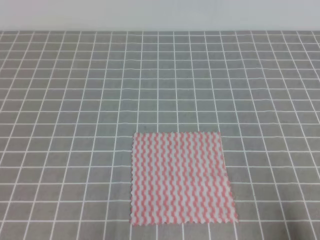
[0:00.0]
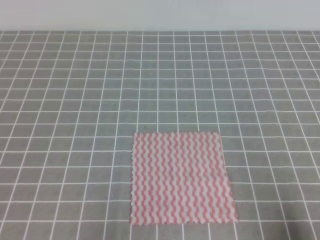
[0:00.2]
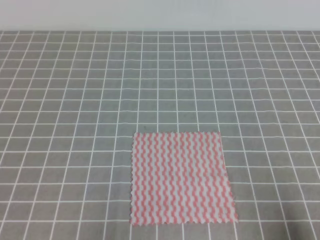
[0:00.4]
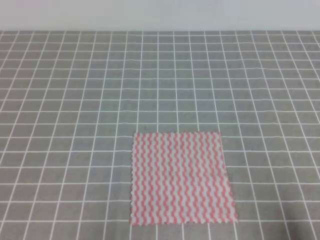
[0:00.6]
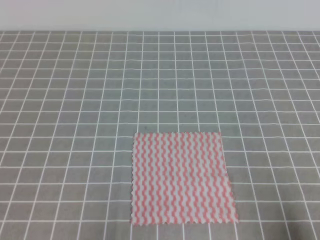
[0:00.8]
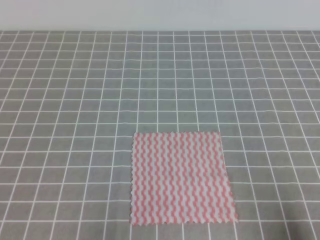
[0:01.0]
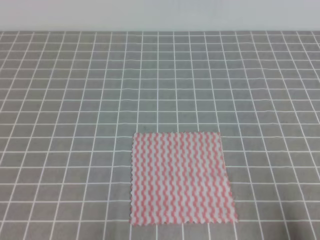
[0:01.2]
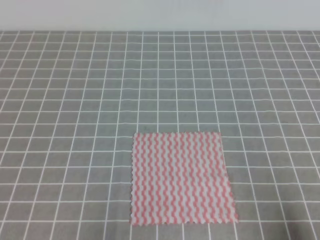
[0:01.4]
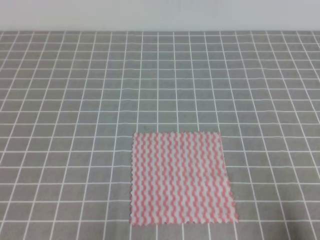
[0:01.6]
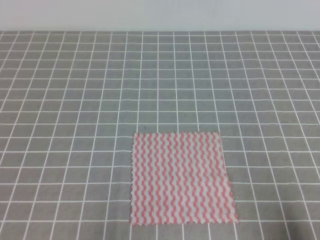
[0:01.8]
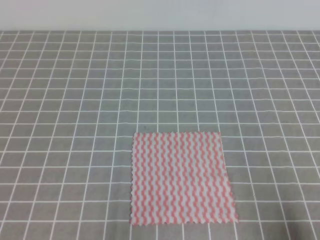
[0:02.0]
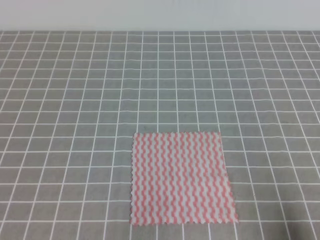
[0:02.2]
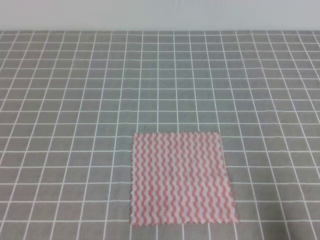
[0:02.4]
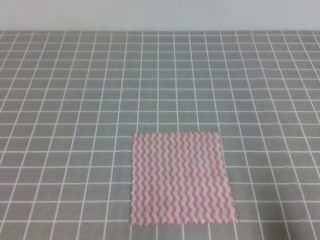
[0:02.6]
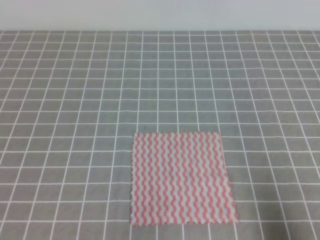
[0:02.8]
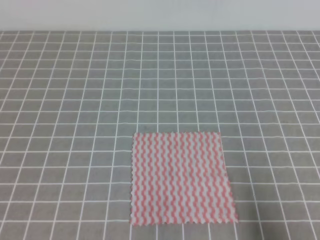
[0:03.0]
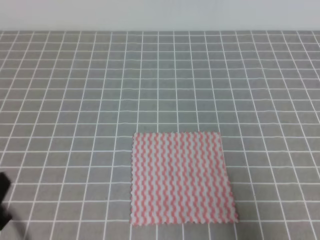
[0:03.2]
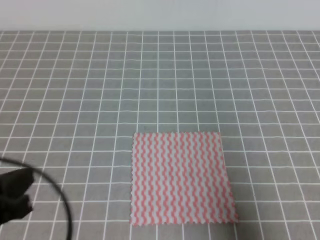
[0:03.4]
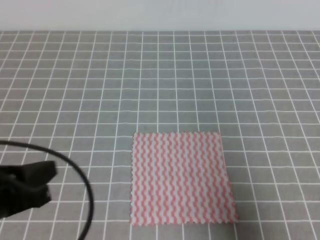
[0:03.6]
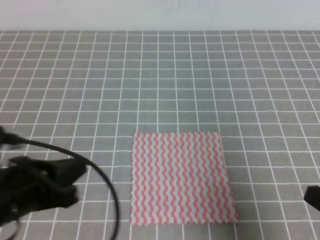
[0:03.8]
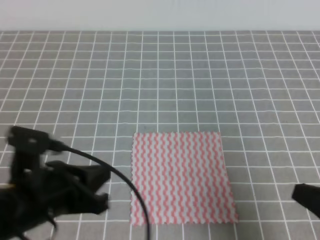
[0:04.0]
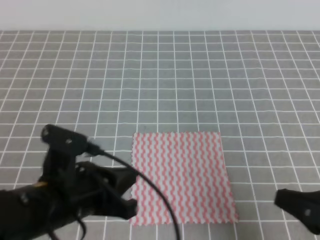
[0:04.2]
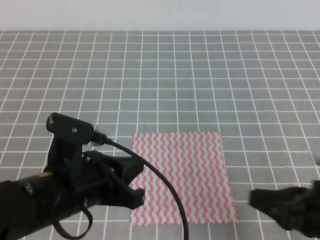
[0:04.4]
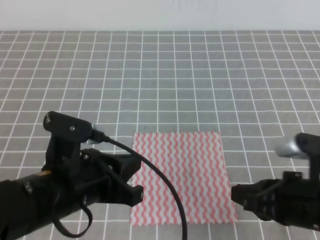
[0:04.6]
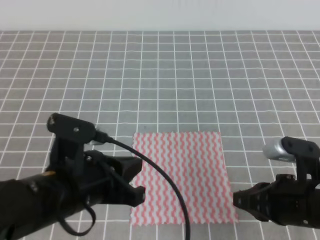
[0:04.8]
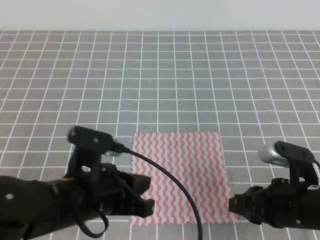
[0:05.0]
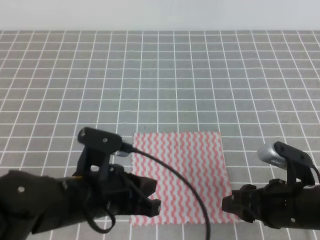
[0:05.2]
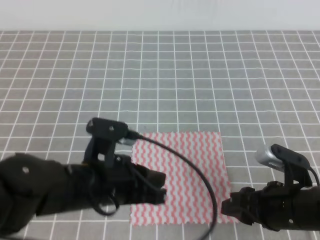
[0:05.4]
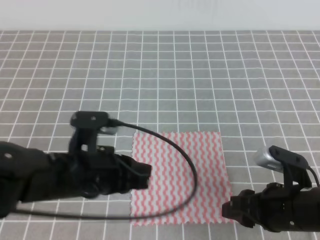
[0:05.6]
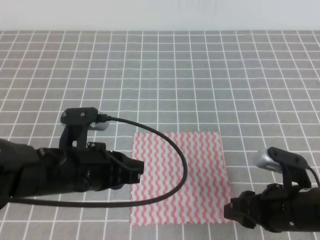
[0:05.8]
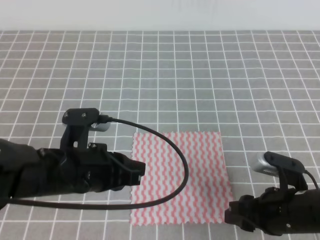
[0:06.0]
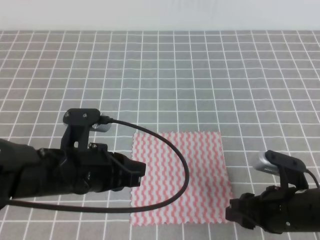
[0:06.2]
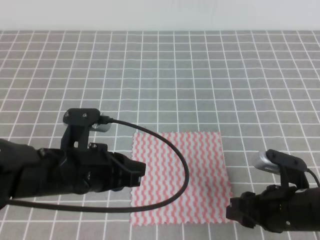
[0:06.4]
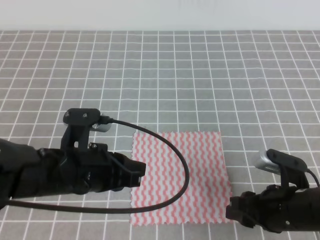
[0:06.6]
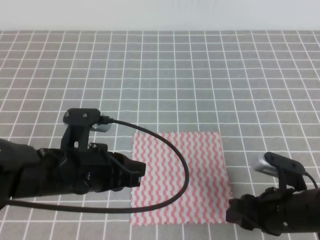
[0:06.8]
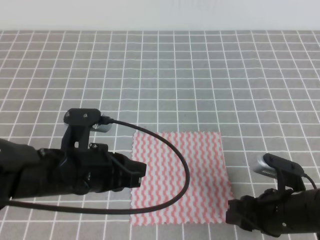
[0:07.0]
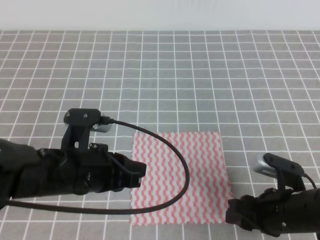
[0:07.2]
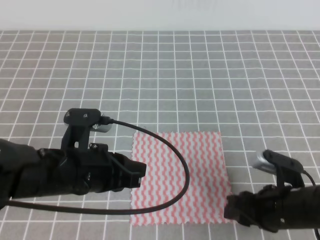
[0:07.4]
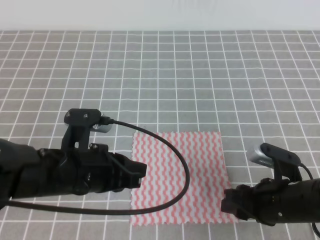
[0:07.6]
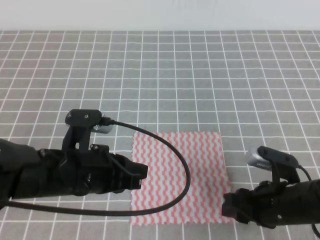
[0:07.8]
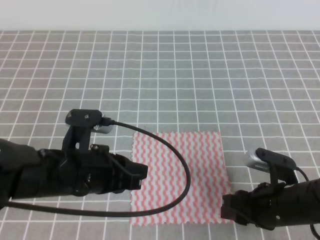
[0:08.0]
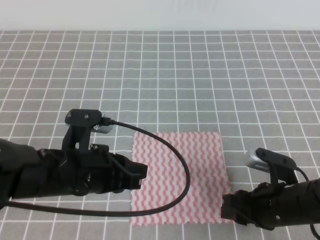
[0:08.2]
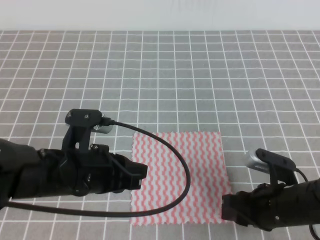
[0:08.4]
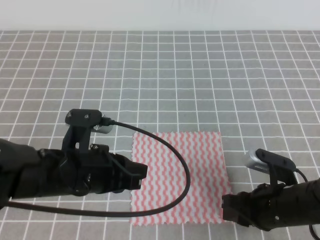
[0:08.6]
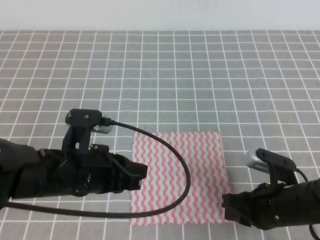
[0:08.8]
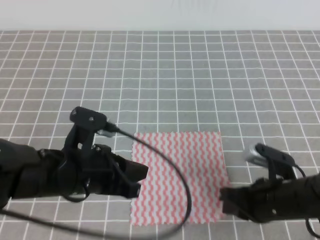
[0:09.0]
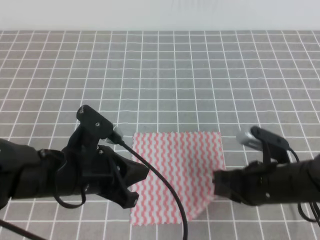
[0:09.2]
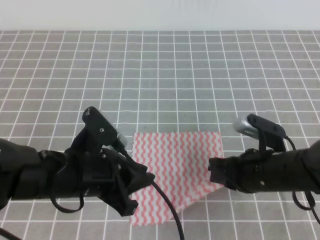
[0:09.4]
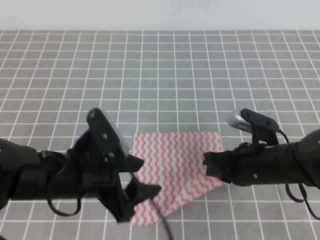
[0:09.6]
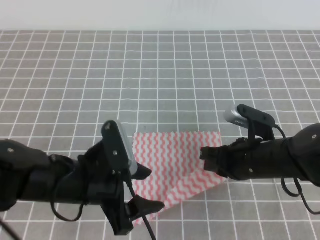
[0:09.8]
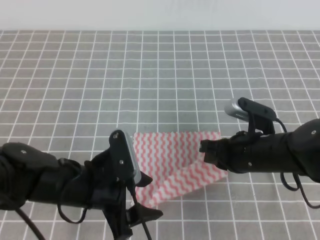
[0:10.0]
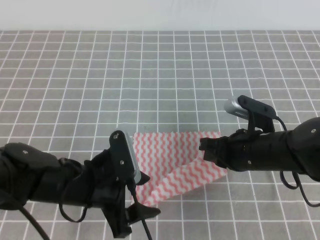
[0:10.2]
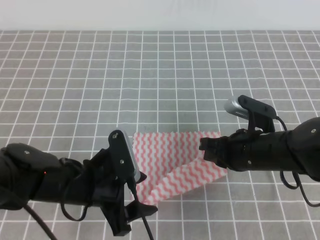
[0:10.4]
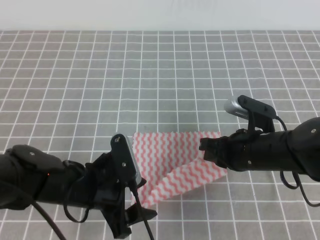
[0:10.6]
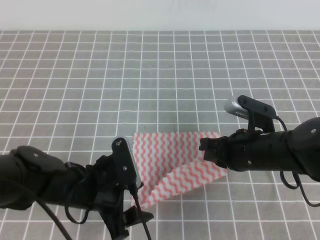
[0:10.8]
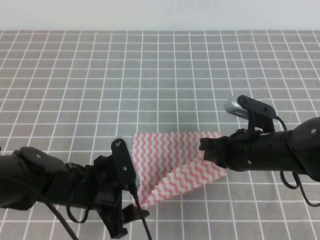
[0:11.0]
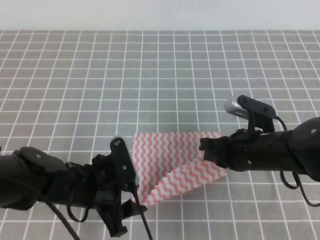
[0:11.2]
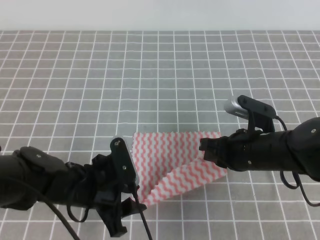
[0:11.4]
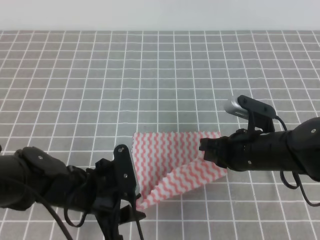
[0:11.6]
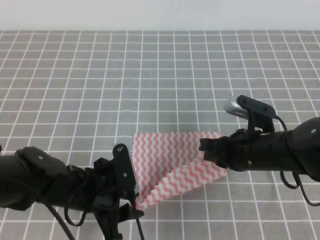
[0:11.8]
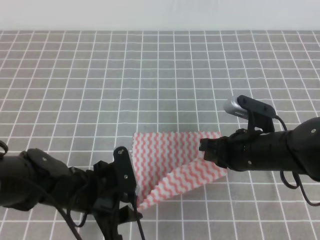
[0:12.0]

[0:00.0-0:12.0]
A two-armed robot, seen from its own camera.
Step, 0:00.0 to 0:10.8: Fold the towel upwards with the both gripper.
0:00.0 to 0:01.6: Both grippers stay about where they are.
0:03.0 to 0:04.4: The right gripper shifts about 10 cm to the left and forward. Meanwhile the left gripper shifts some 15 cm to the right and forward.
0:04.4 to 0:06.0: The right gripper shifts about 5 cm downward, and opens. Meanwhile the left gripper changes place by roughly 5 cm.
0:06.0 to 0:07.6: The grippers make only small movements.
0:07.6 to 0:09.0: The right gripper closes its fingers.
0:09.0 to 0:10.4: The right gripper is displaced forward by some 5 cm. Meanwhile the left gripper opens its fingers.
0:10.4 to 0:12.0: The left gripper closes its fingers.

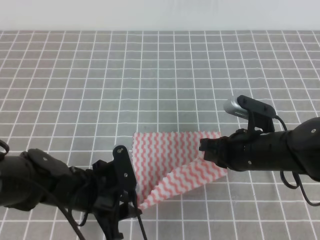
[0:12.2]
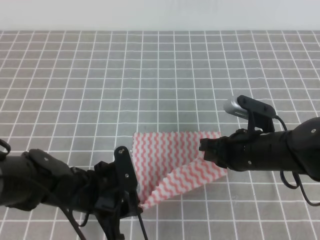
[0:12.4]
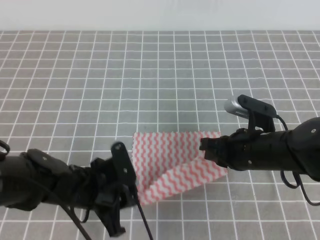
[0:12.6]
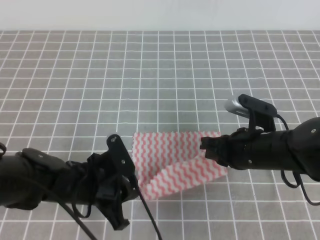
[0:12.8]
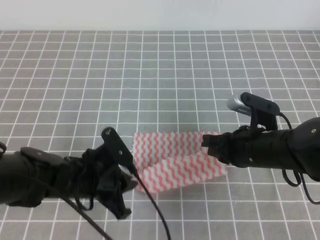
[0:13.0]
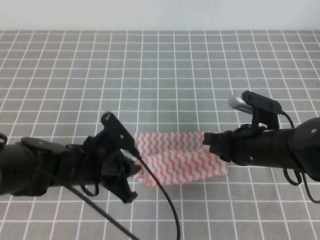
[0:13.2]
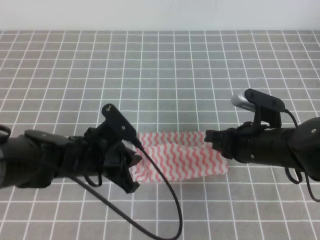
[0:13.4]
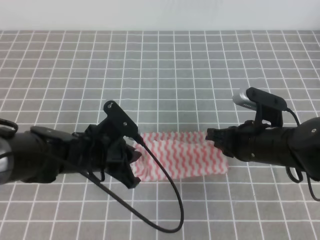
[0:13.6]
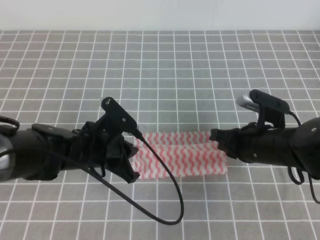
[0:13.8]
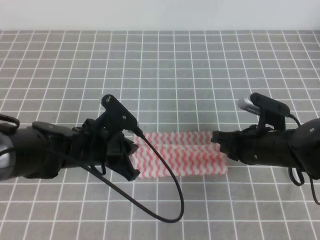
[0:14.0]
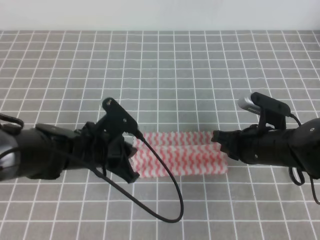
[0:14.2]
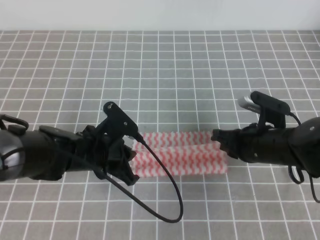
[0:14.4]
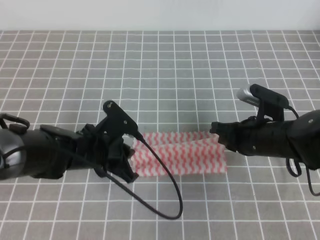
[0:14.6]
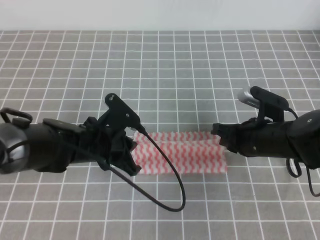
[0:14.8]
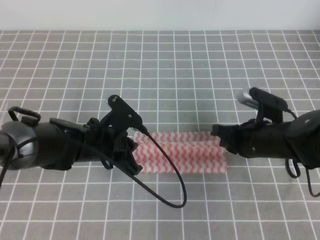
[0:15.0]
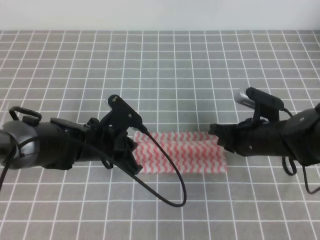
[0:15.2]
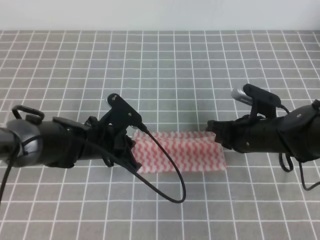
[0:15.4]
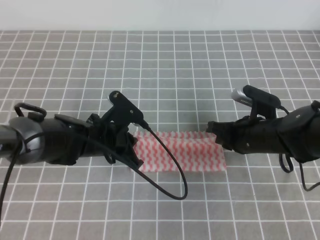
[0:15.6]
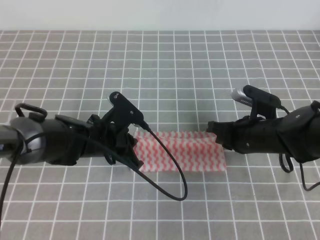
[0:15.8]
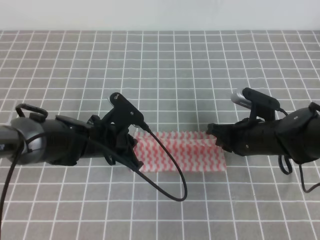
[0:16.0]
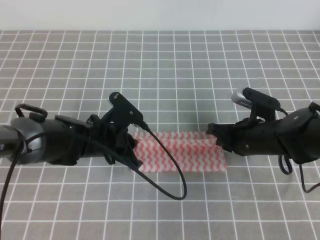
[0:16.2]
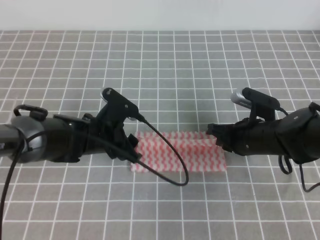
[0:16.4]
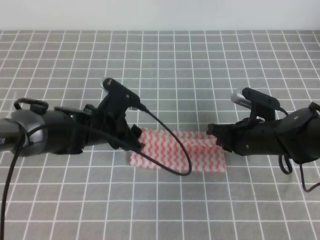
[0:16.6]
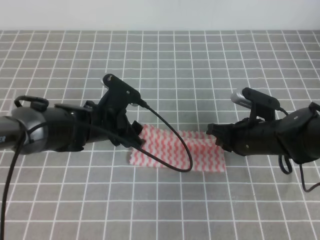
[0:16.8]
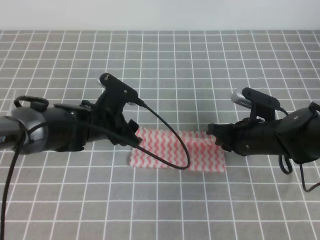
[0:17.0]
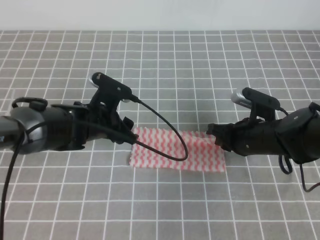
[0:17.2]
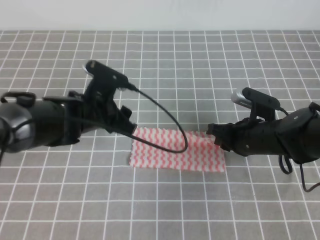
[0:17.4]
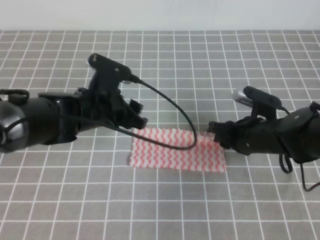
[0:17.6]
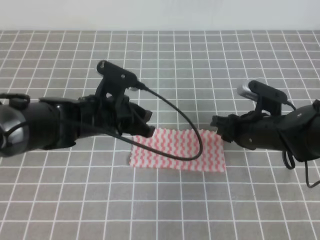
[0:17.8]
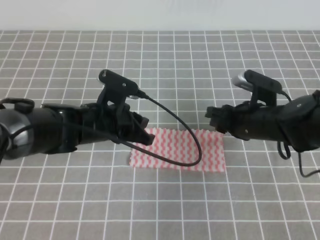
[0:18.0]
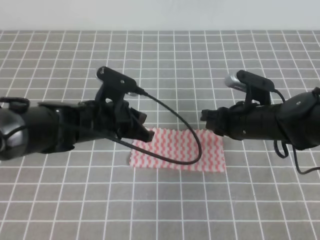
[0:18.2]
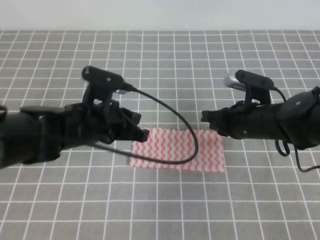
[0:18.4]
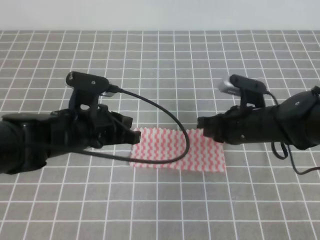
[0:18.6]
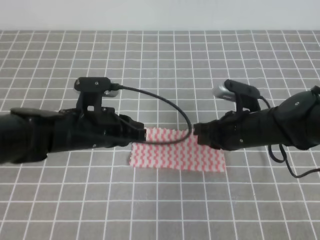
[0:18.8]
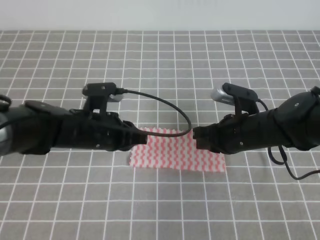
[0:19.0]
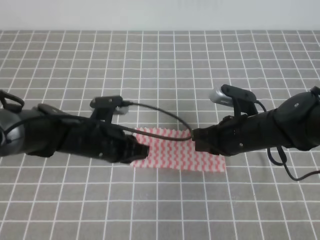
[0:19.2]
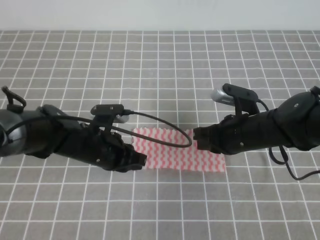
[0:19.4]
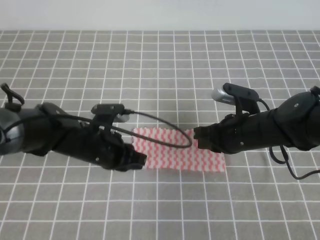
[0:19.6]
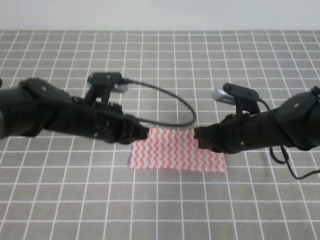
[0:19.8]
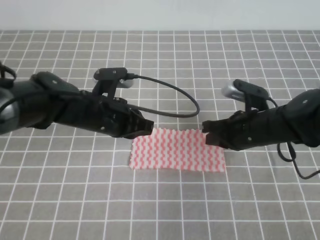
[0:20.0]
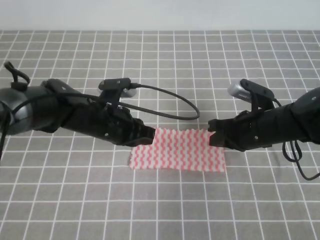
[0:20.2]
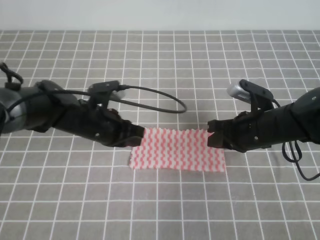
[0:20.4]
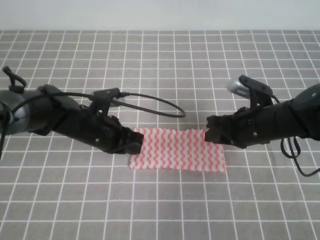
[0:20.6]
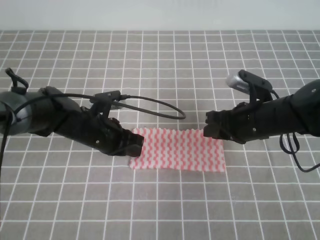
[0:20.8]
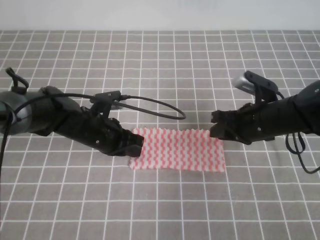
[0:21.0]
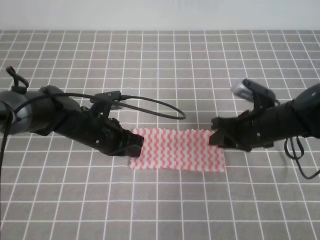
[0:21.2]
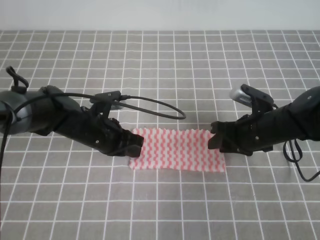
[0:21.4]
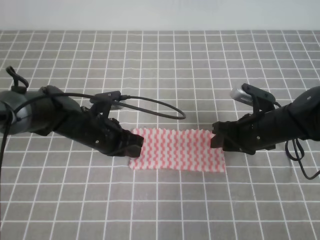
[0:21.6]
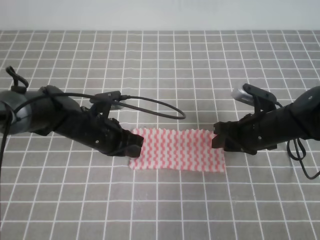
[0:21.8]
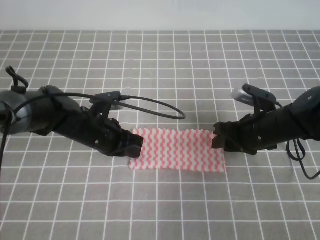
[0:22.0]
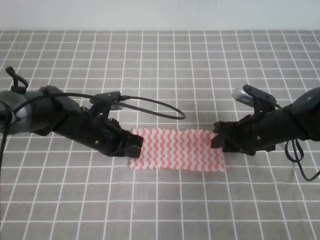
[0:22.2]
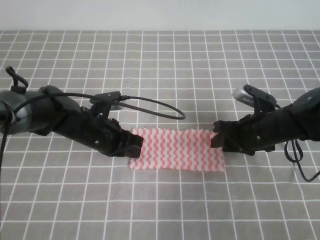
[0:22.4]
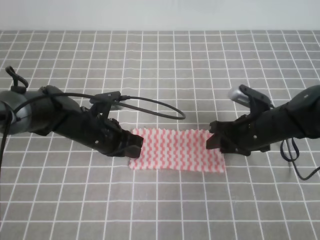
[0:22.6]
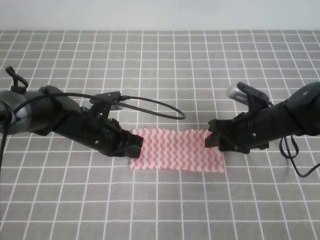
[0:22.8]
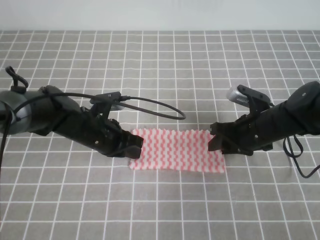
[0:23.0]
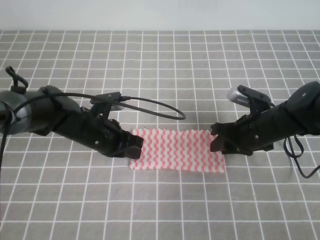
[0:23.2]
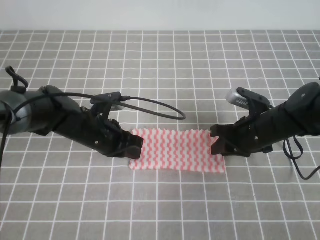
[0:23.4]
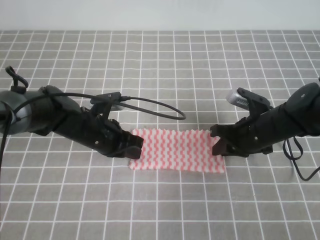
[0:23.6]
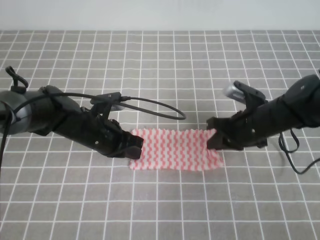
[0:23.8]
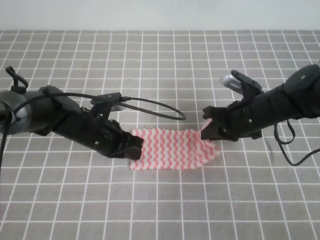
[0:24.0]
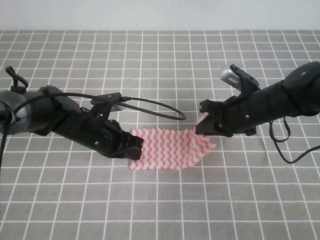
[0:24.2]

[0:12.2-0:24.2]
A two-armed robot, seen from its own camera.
Step, 0:12.8 to 0:16.8: Fold the towel from right to left with the right gripper.
Step, 0:17.0 to 0:18.6: Tidy up the towels.
0:12.2 to 0:13.8: The left gripper heads forward, covering approximately 5 cm, and closes its fingers.
0:13.8 to 0:15.2: The grippers stay close to where they were, moving slightly.
0:15.2 to 0:16.6: The left gripper opens up.
0:16.6 to 0:18.2: The left gripper closes; the right gripper opens up.
0:18.2 to 0:19.8: The right gripper closes its fingers.
0:19.8 to 0:21.2: The left gripper ends up about 5 cm from where it was, while the right gripper opens.
0:21.2 to 0:22.6: The grippers make only small movements.
0:22.6 to 0:24.2: The right gripper closes its fingers.
